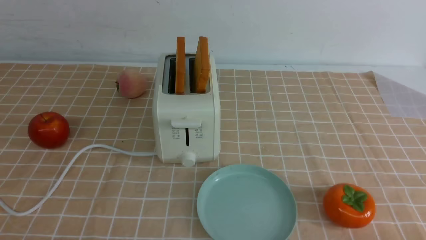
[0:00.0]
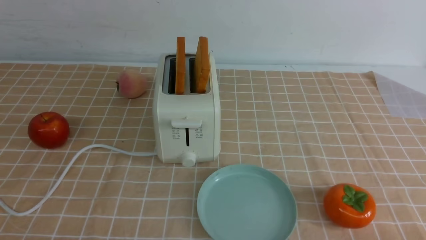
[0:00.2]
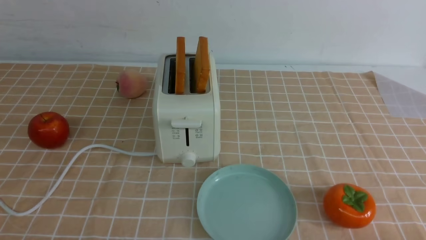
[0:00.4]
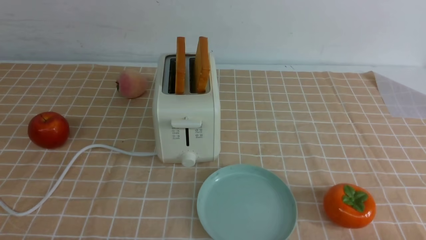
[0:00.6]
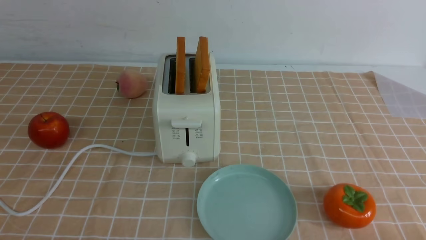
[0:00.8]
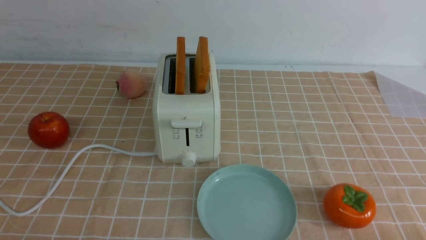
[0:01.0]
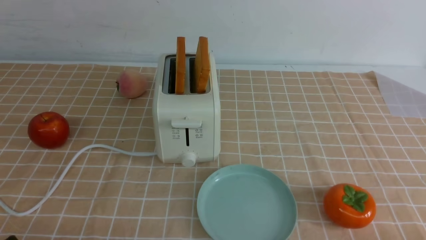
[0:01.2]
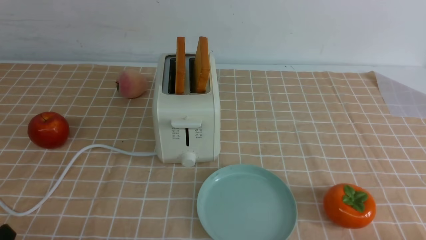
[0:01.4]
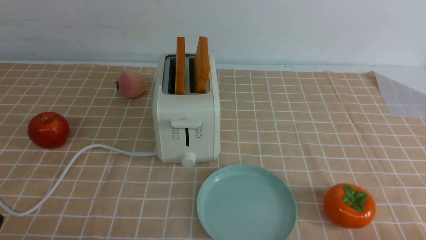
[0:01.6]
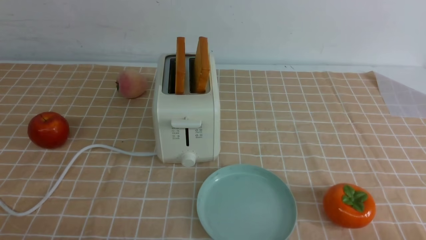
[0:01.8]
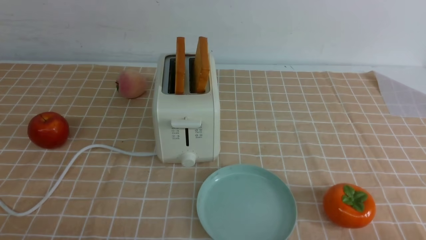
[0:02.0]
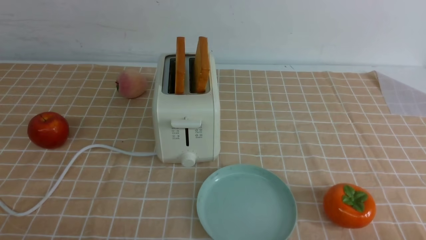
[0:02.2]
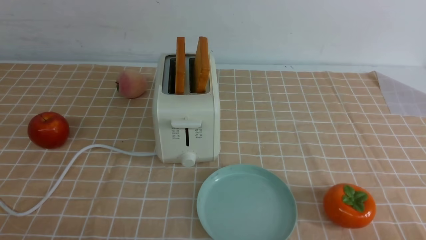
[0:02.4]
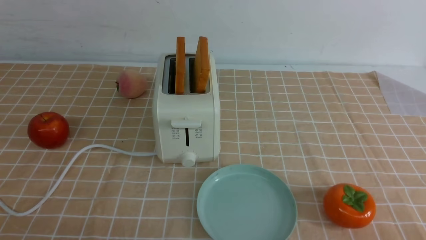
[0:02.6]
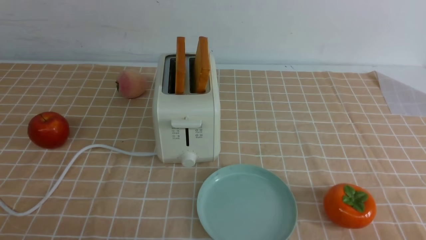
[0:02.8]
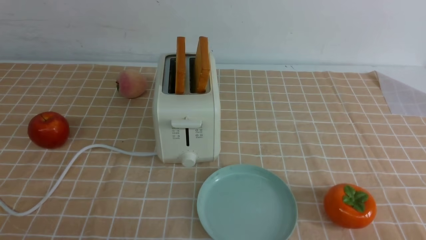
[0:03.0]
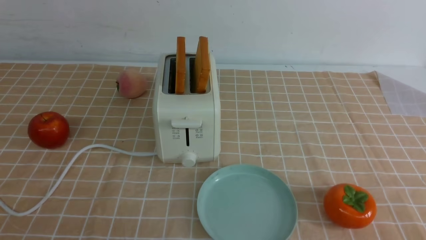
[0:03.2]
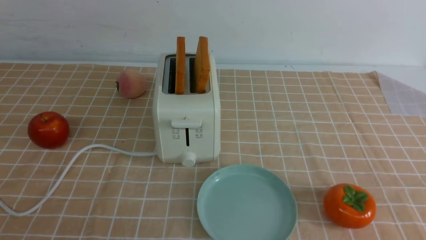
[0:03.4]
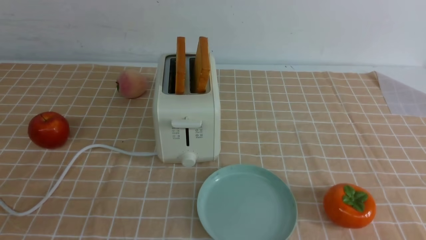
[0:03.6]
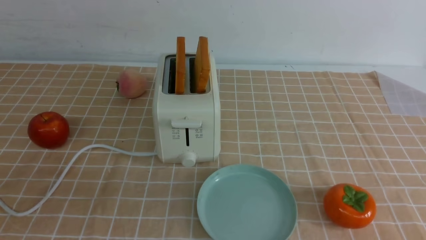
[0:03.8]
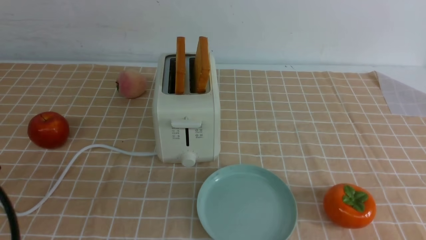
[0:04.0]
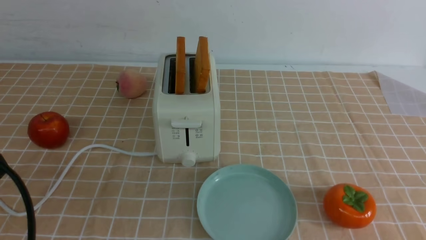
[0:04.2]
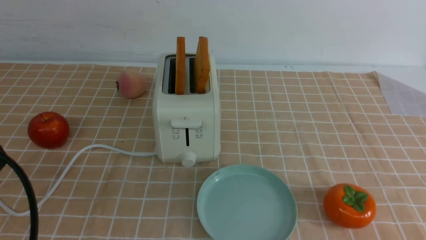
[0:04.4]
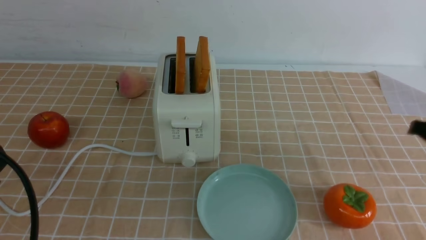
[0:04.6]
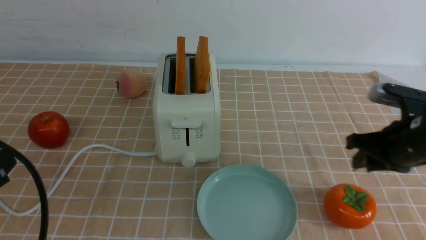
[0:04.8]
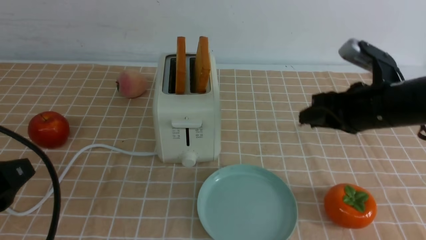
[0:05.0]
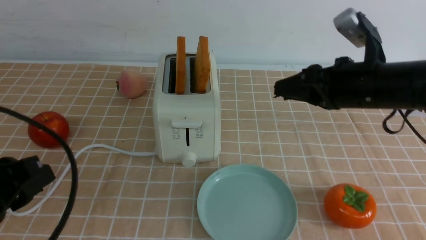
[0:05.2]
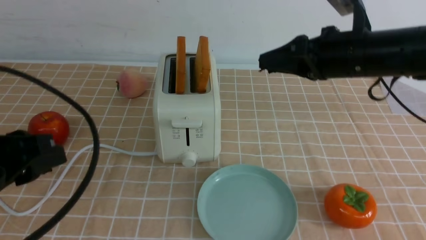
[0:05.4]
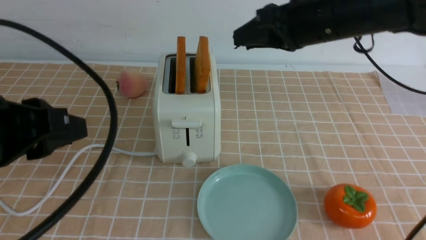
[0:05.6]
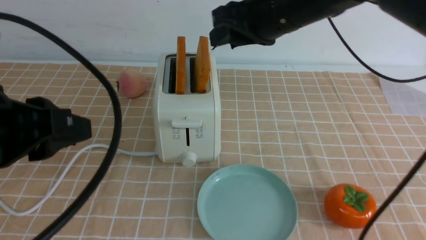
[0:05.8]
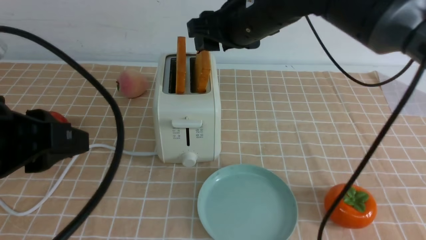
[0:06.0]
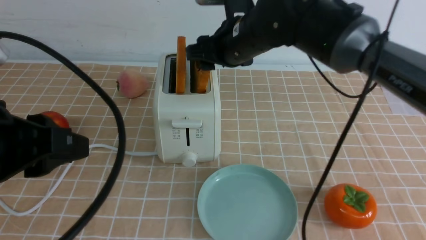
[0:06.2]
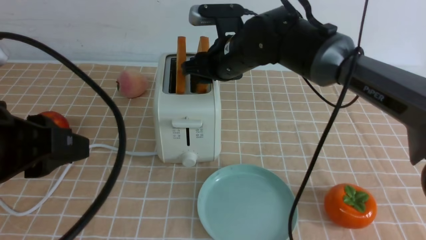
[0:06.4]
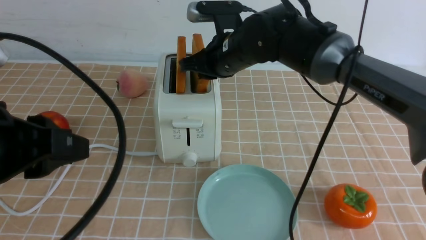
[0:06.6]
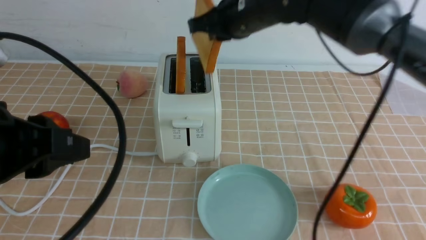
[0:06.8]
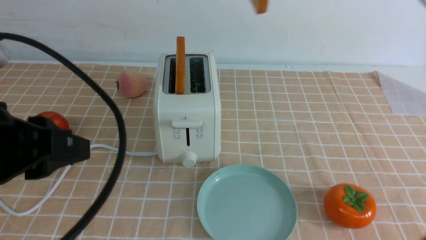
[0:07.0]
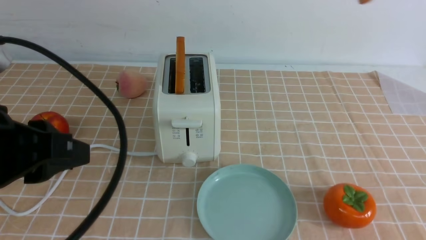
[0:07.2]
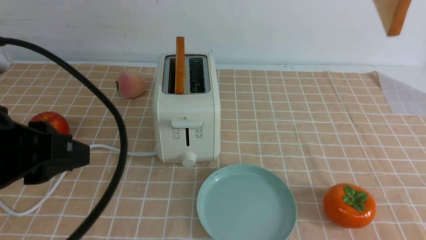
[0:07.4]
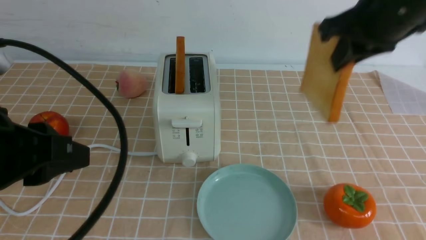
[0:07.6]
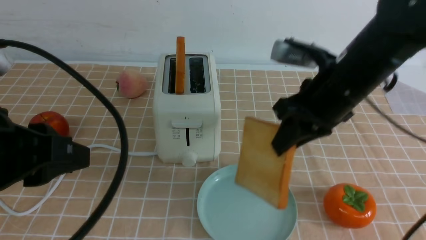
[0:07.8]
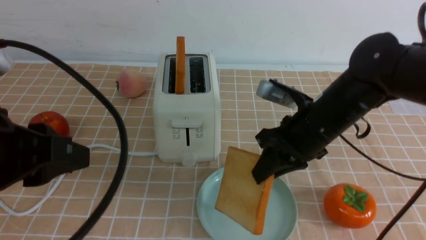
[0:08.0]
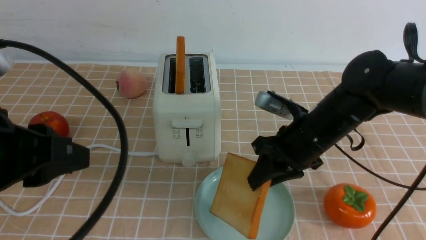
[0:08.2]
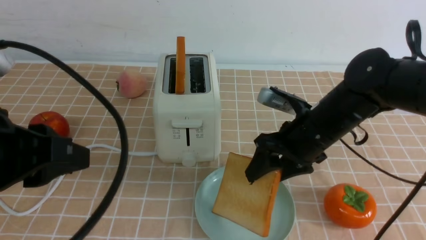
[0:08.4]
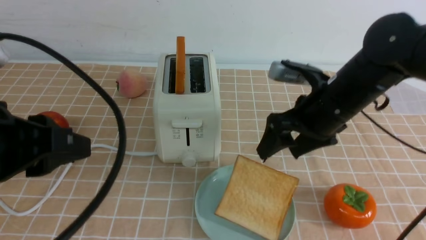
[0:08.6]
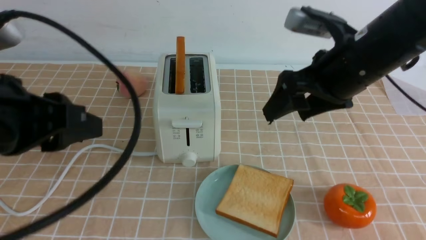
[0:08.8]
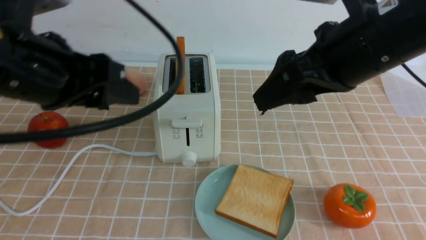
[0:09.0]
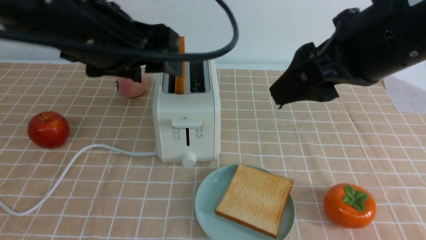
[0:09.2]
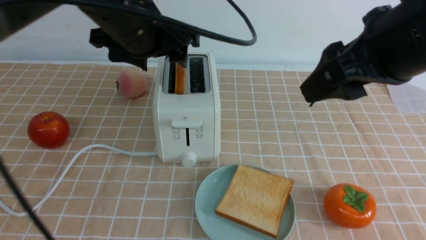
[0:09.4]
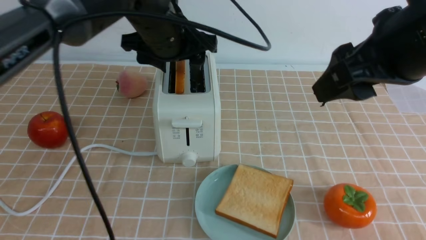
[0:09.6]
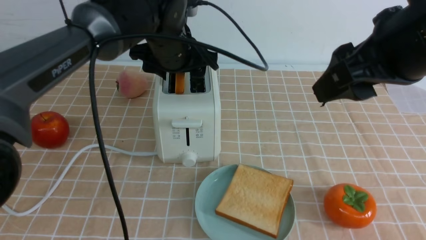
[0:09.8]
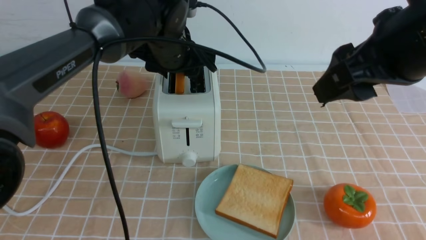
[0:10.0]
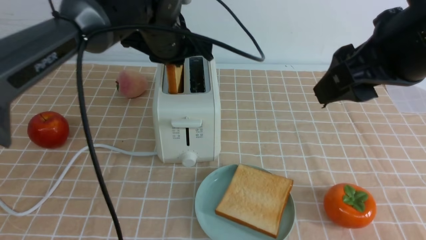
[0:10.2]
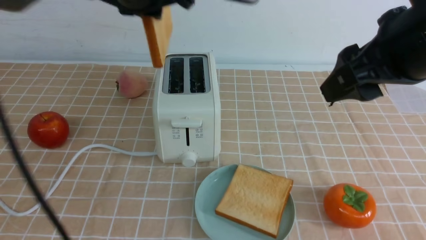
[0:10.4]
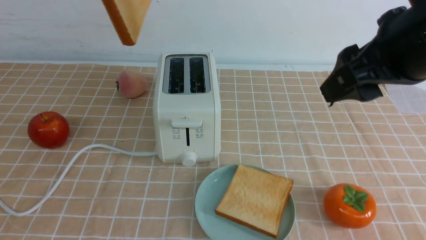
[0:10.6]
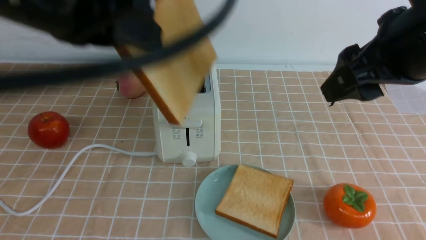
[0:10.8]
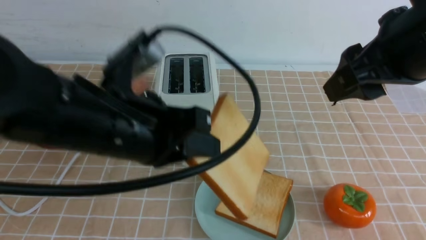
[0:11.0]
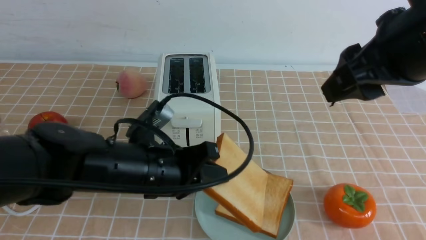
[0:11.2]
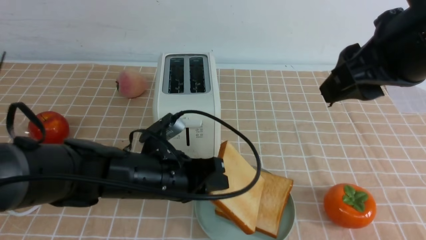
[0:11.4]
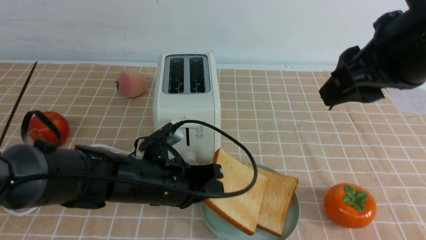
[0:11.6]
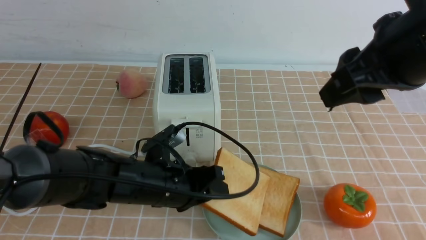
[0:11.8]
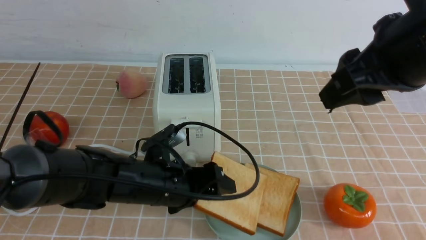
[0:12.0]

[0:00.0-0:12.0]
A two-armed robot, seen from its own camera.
Task of the whole recording: take toasted bread from bread machine on light coffee tablecloth place on plate.
Step, 0:00.0 to 0:06.6: use the right arm to take out a slice of bread.
Step, 0:06.8 to 0:08.8: use the right arm to put a slice of bread into the plate.
Step, 0:09.0 to 0:10.6: use the left arm to take out a slice of bread.
0:03.0 to 0:04.4: The left gripper goes roughly 10 cm upward and forward.
0:04.4 to 0:06.0: The left gripper moves upward and forward, roughly 10 cm, while the right gripper moves to the left and forward, about 30 cm.
0:06.0 to 0:07.6: The right gripper goes up and down, about 20 cm each way, reversing 2 times, and closes its fingers.
0:07.6 to 0:09.0: The left gripper is displaced forward by roughly 10 cm, and opens. Meanwhile the right gripper heads backward, covering some 5 cm, reaches some 15 cm downward, then returns, and opens.
0:09.0 to 0:10.4: The left gripper goes about 15 cm forward, to the right and upward, and closes.
0:10.4 to 0:12.0: The left gripper heads downward, covering some 25 cm, and opens up.

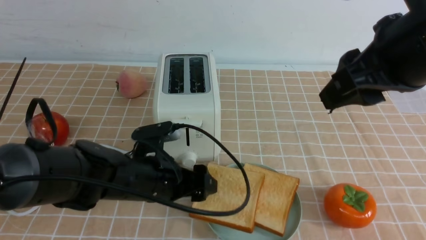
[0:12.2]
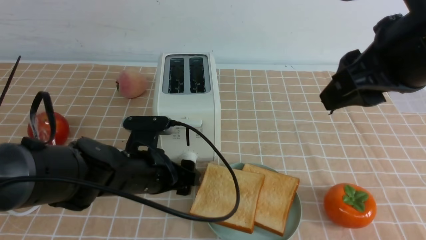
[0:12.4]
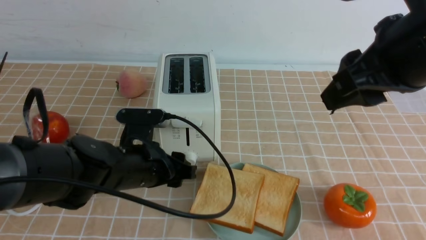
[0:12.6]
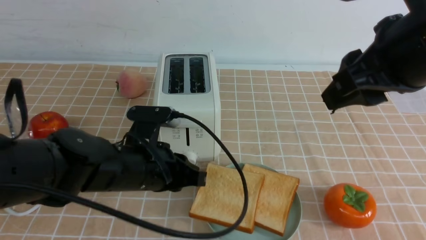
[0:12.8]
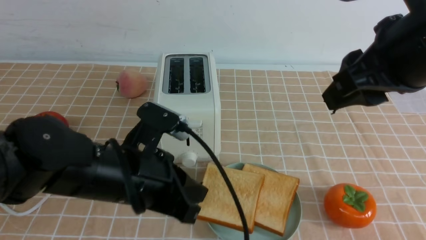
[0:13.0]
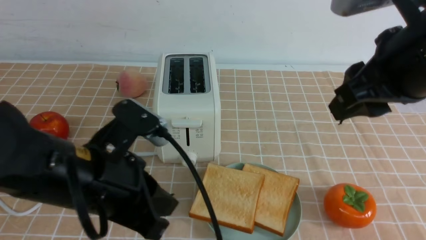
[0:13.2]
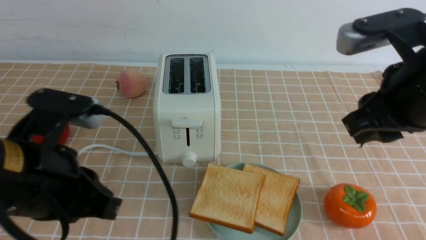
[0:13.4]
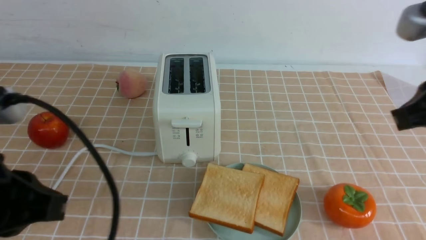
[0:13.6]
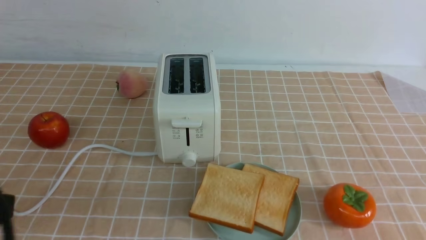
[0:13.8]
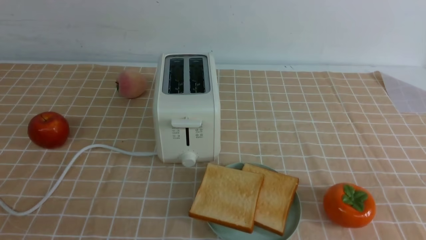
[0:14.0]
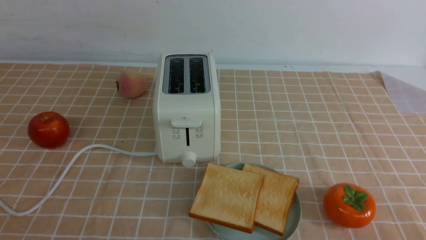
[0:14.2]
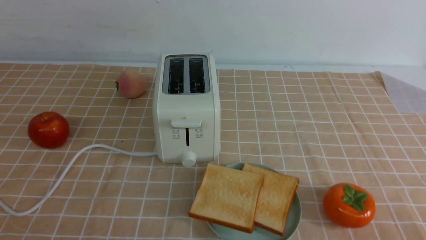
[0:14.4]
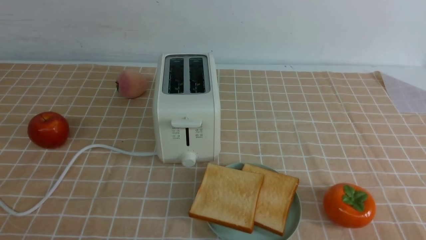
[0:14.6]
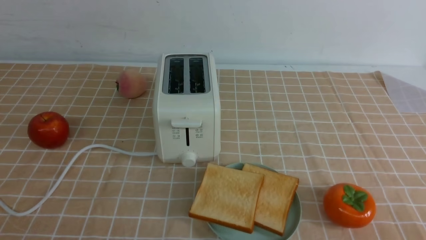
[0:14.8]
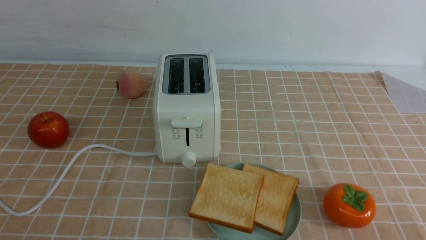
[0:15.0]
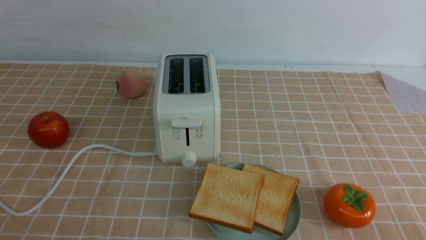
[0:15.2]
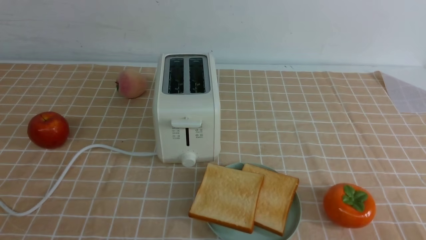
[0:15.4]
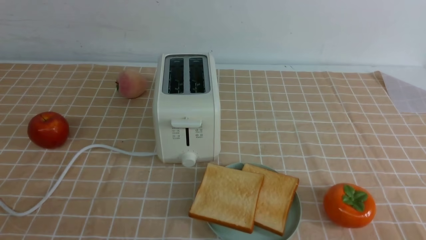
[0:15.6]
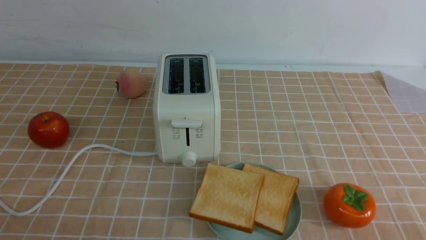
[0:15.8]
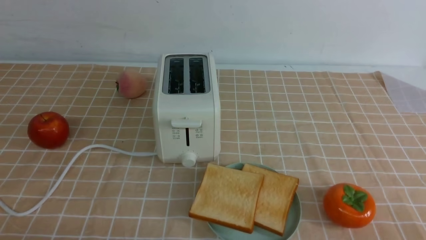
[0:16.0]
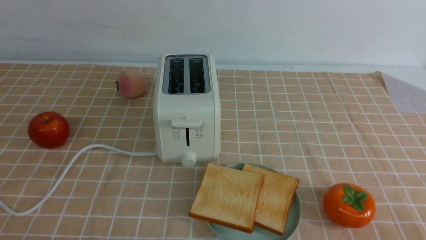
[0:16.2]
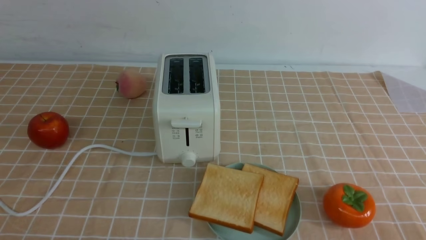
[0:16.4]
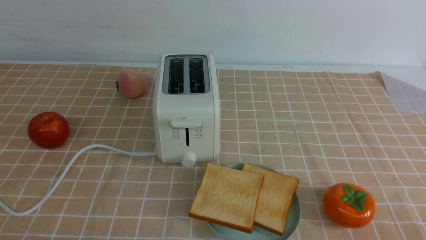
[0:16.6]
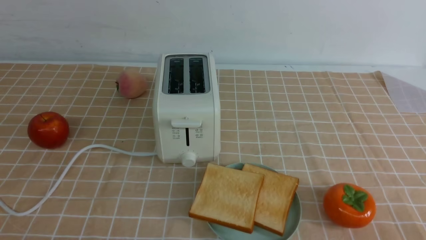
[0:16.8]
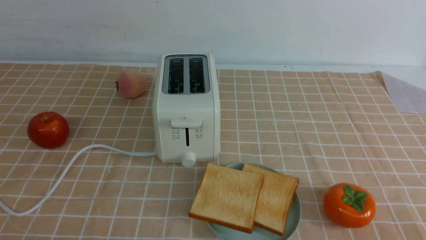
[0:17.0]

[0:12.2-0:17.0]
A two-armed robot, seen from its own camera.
Task of the whole recording: take toasted bread from bread machine on light coffee tablecloth place on plate.
0:12.2 to 0:13.8: The left gripper moves backward, upward and to the left, approximately 30 cm, and closes; the right gripper goes about 15 cm backward and to the right, and closes its fingers.
0:13.8 to 0:15.4: The left gripper goes some 5 cm backward, while the right gripper heads downward and backward, covering about 15 cm.
